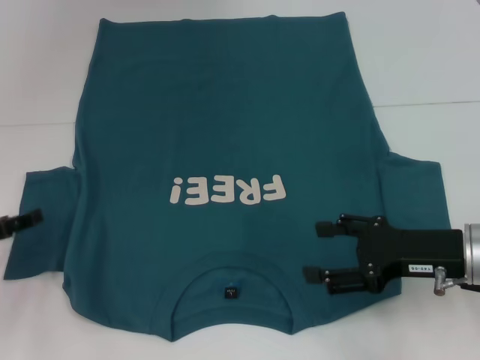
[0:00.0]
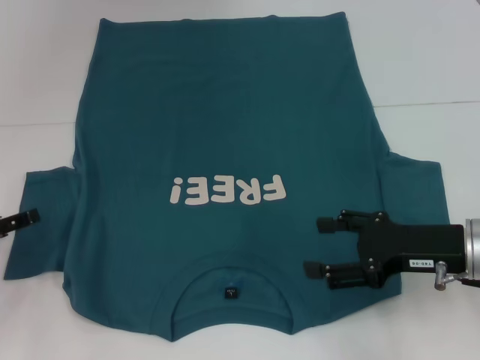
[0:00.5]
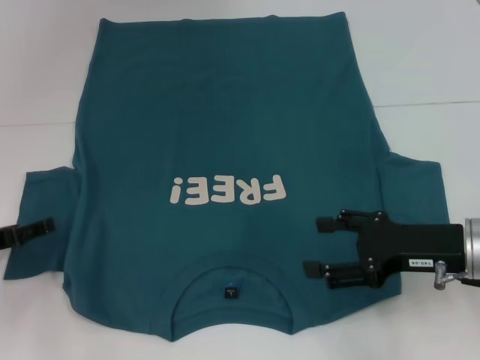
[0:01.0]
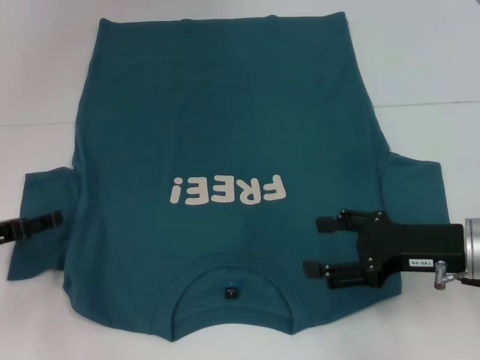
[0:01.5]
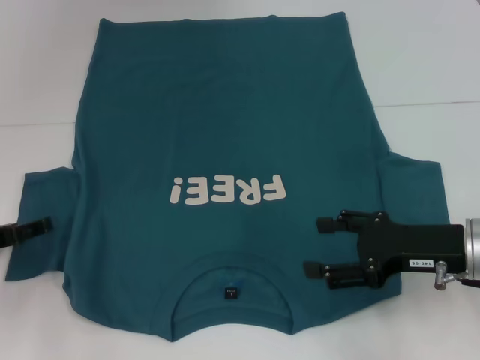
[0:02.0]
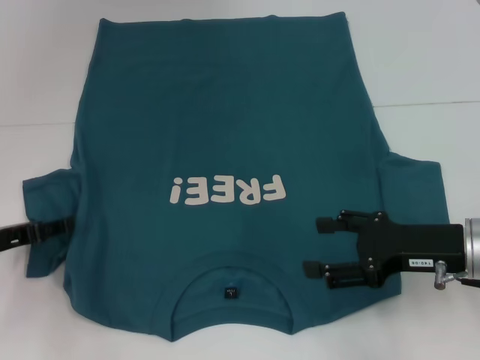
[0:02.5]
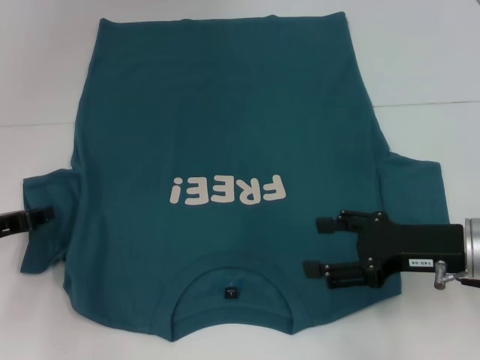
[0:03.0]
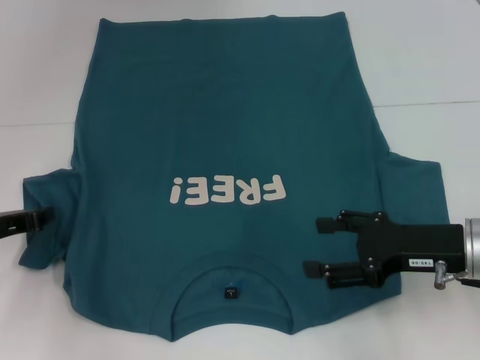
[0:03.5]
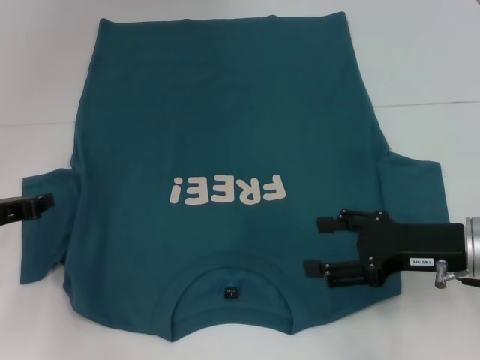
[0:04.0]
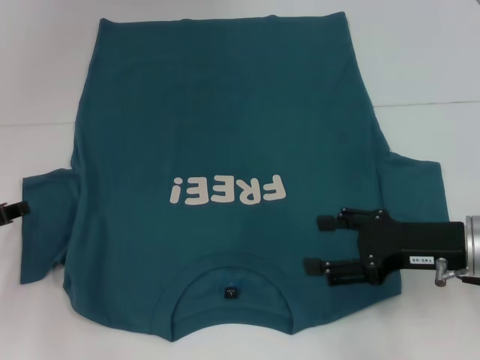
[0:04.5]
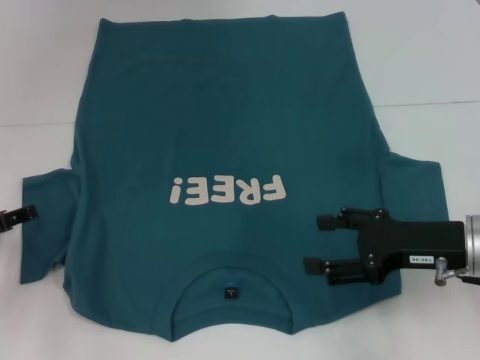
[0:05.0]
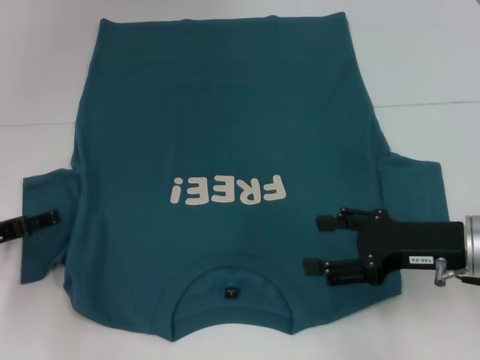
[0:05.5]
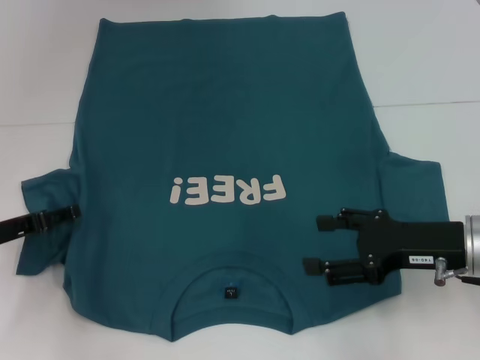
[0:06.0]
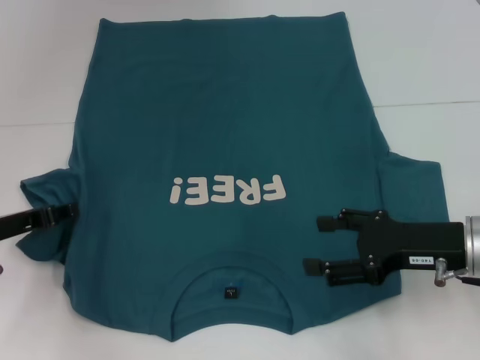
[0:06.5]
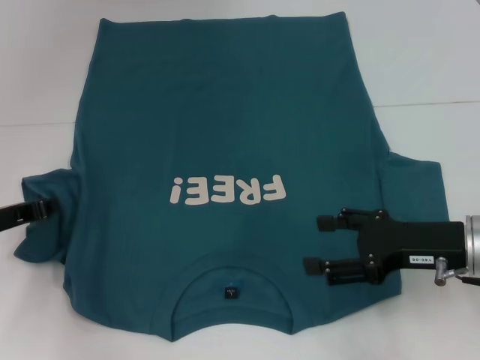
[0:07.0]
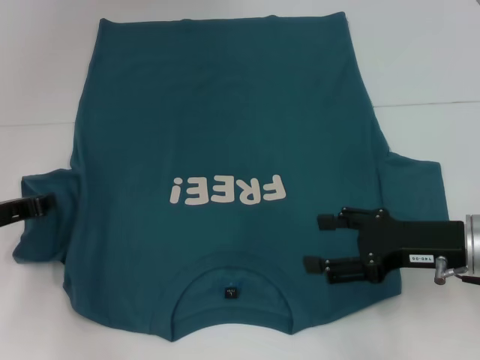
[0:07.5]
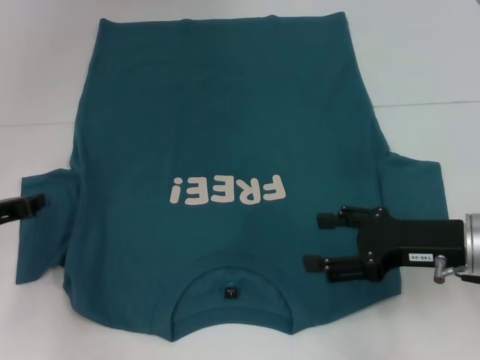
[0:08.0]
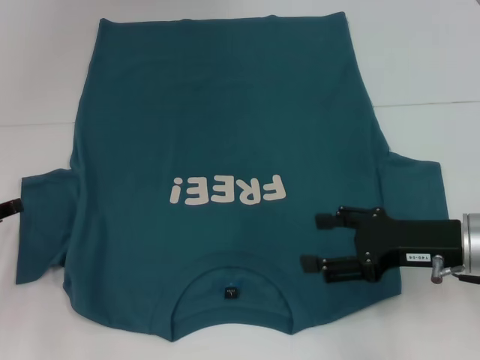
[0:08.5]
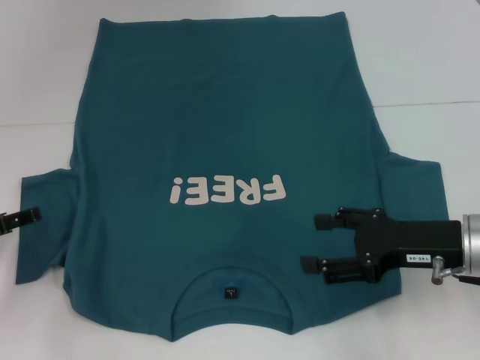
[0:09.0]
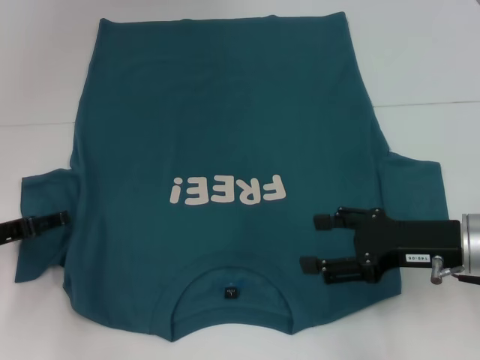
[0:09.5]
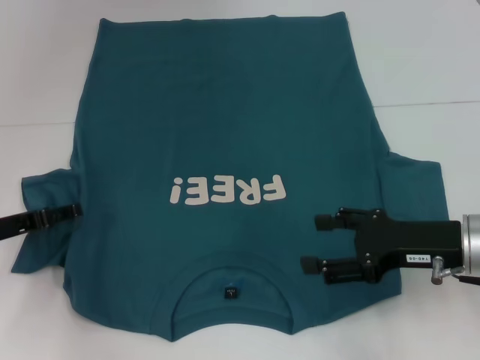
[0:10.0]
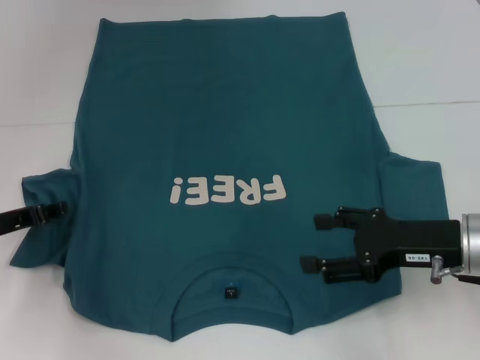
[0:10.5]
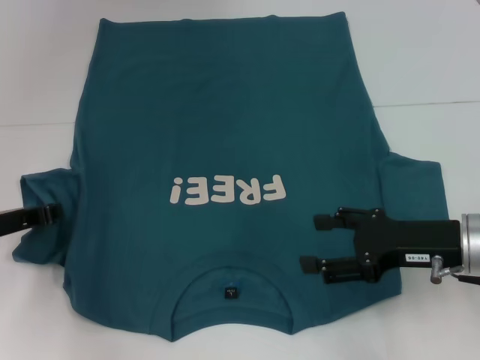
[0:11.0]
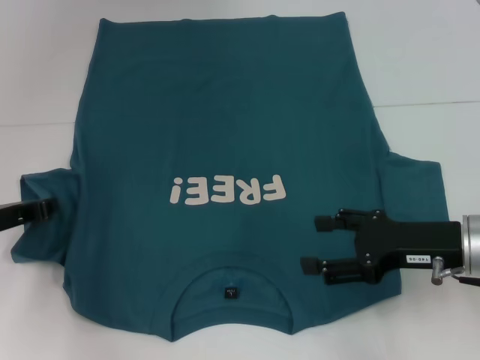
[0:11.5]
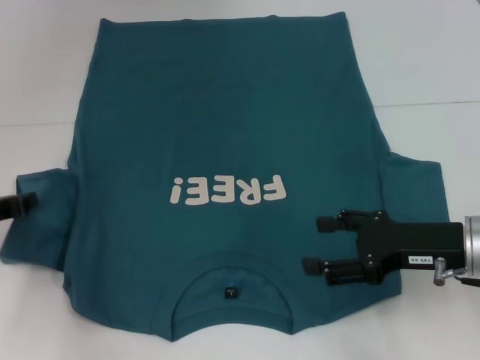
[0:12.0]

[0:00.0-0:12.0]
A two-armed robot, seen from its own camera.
0:00.0 to 0:02.0: There are only small adjustments of the grippers.
0:02.0 to 0:04.0: The left gripper closes its fingers.
0:04.0 to 0:06.0: The left gripper opens.
0:06.0 to 0:08.0: The left gripper closes up.
0:08.0 to 0:10.0: The left gripper opens up.
0:10.0 to 0:12.0: The left gripper closes up.

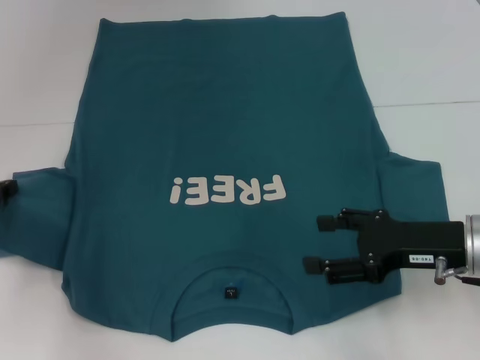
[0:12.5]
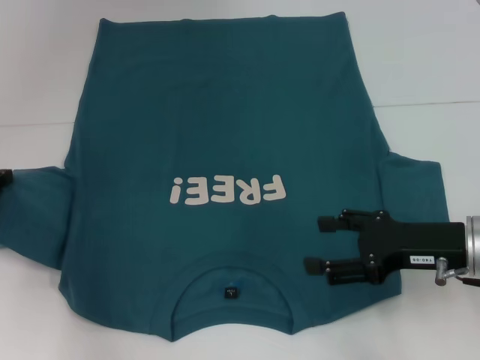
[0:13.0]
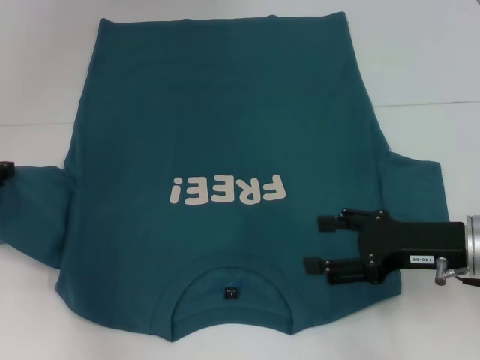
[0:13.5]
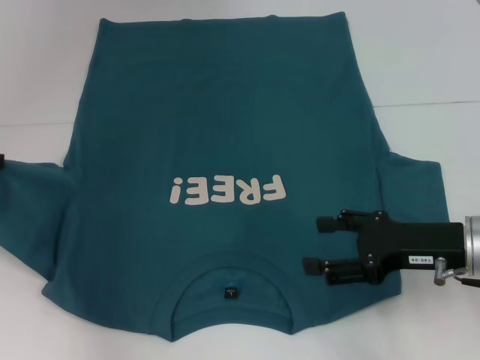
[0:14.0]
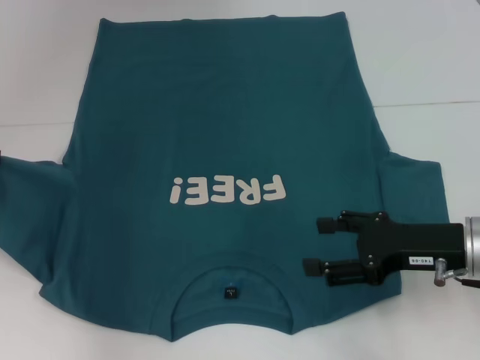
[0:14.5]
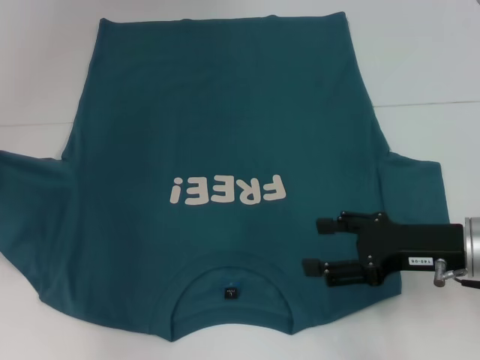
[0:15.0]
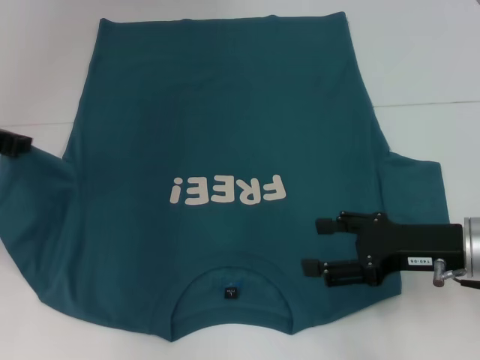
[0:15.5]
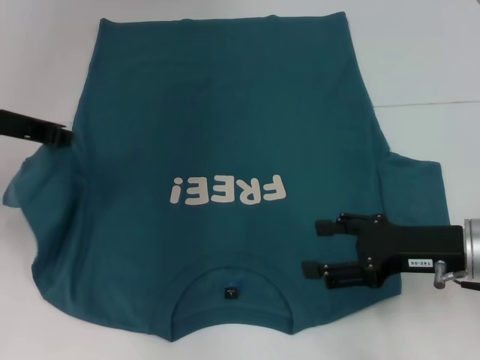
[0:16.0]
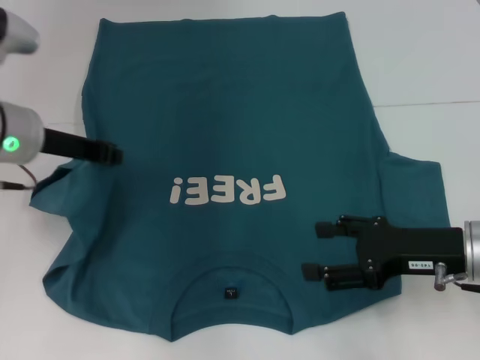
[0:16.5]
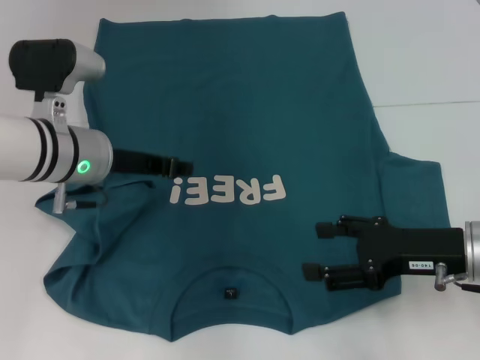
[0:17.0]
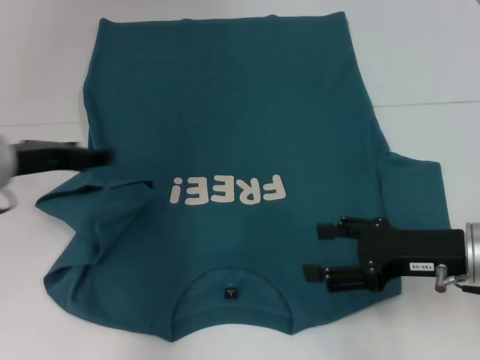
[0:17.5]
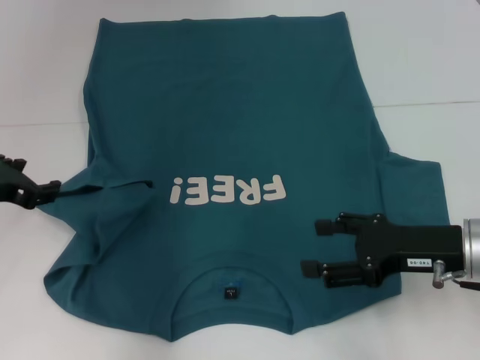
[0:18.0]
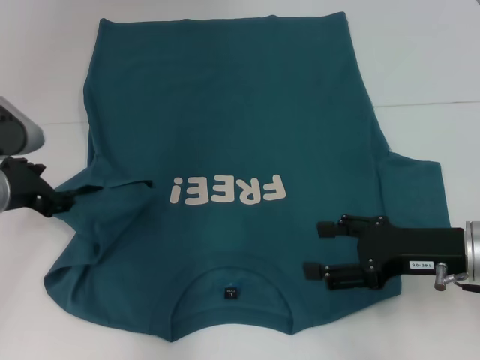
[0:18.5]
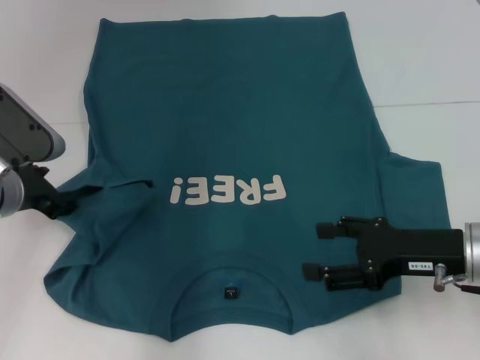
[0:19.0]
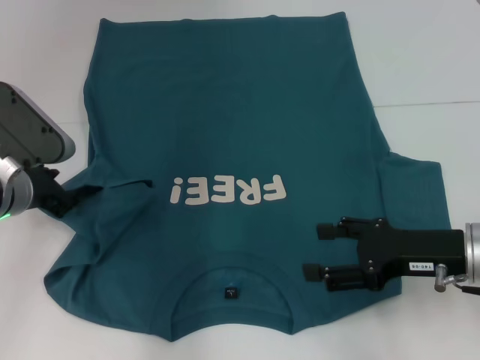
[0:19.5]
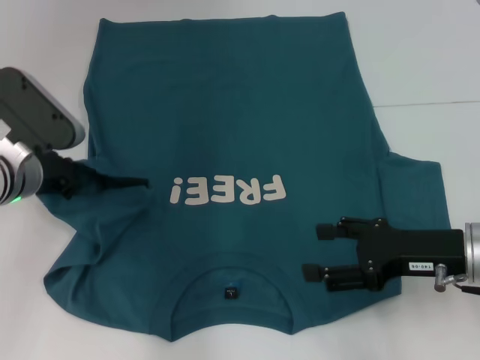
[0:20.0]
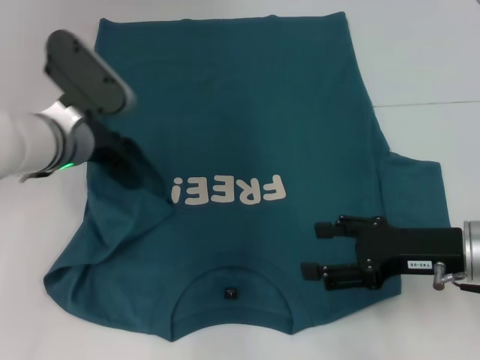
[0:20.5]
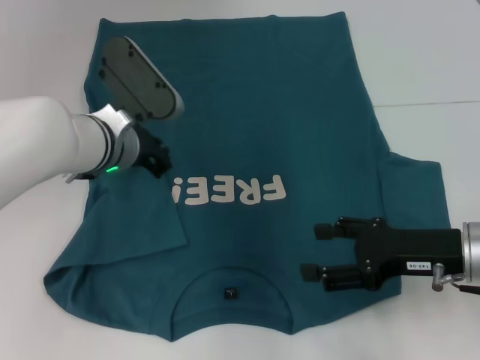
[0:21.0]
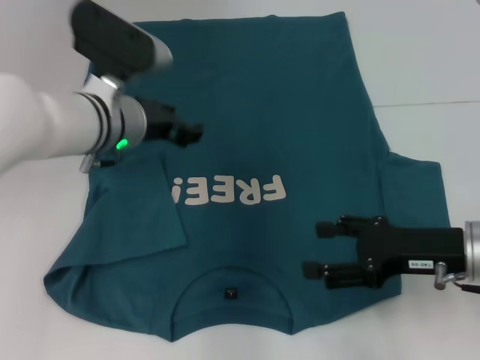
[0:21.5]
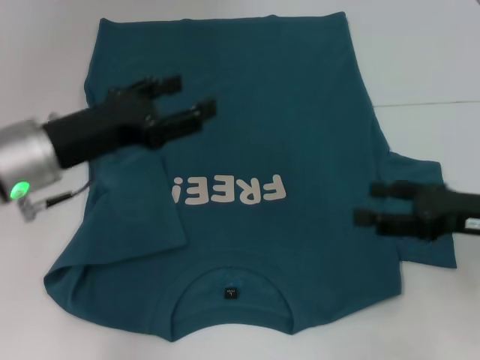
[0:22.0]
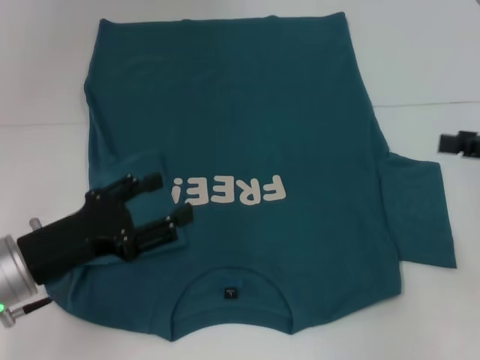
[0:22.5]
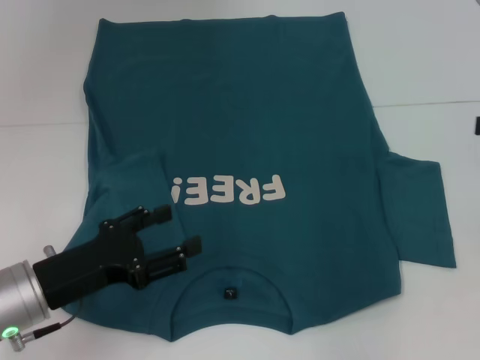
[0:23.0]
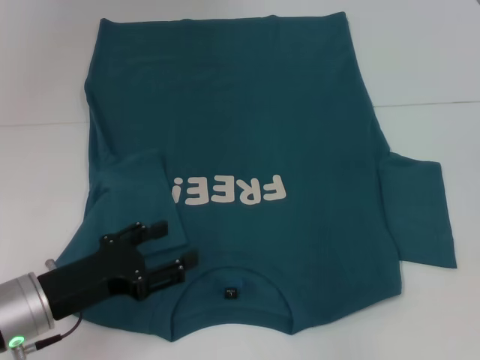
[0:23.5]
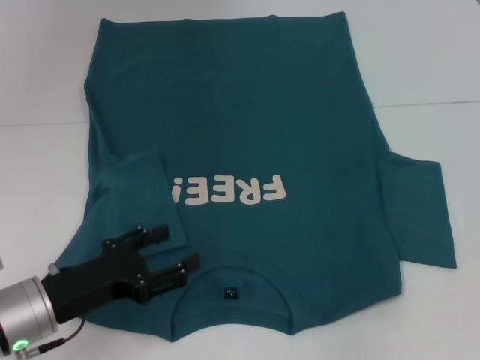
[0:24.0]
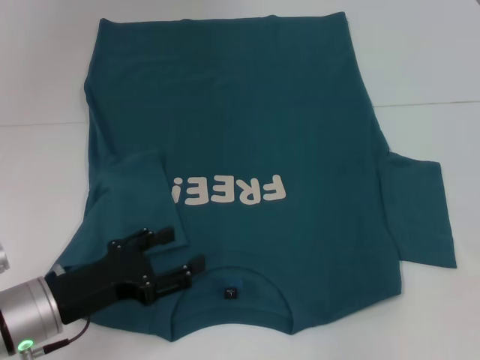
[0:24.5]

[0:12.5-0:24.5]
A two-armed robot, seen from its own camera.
Step, 0:12.5 to 0:21.0: Fold the bottom left sleeve with your left hand.
0:12.5 to 0:14.5: The left gripper travels upward by some 5 cm.
0:14.5 to 0:16.5: The left gripper travels to the right by some 10 cm.
0:16.5 to 0:18.5: The left gripper travels downward by about 5 cm, travels to the left and back again, approximately 5 cm each way, and opens.
0:18.5 to 0:20.5: The left gripper shifts about 10 cm to the right and forward, and closes.
0:20.5 to 0:22.5: The right gripper shifts some 15 cm to the right and upward; the left gripper is displaced backward and to the left by approximately 15 cm, and opens its fingers.

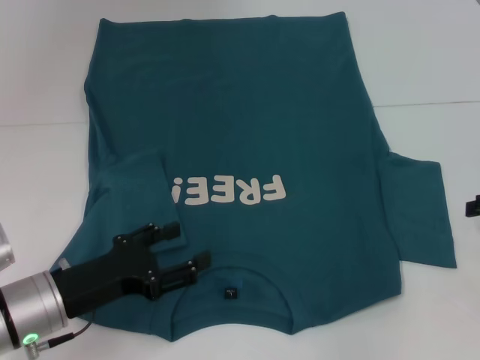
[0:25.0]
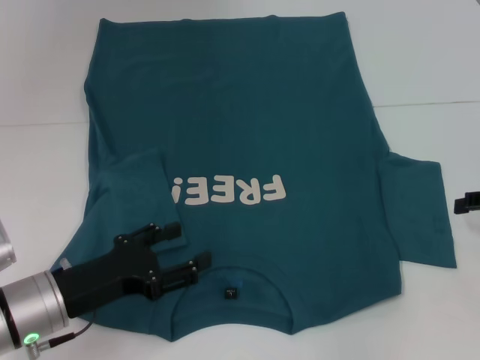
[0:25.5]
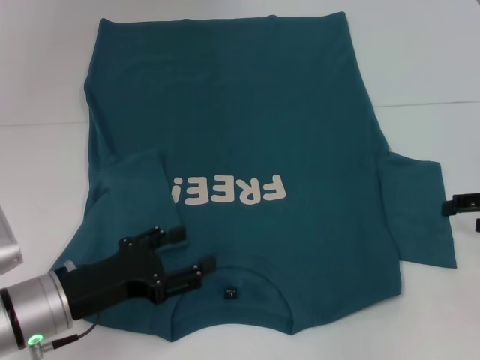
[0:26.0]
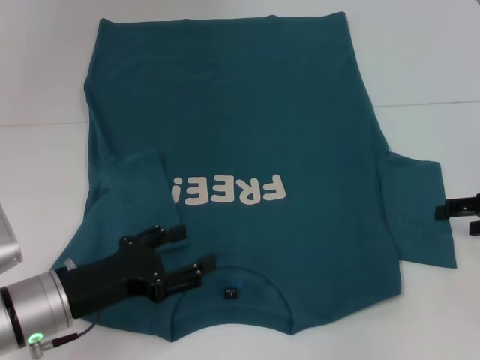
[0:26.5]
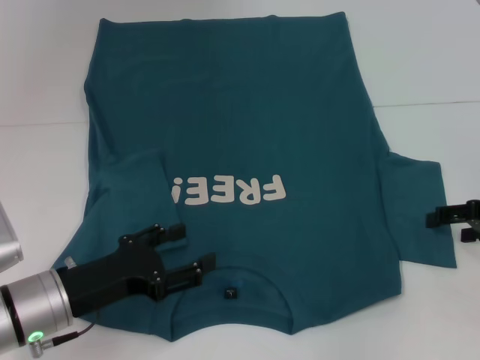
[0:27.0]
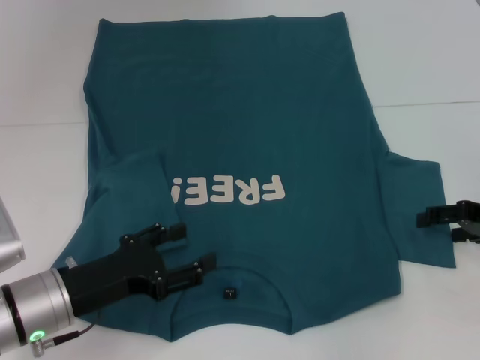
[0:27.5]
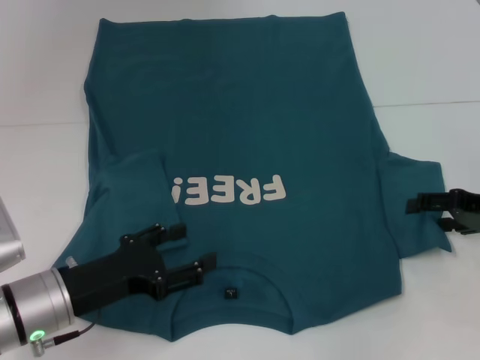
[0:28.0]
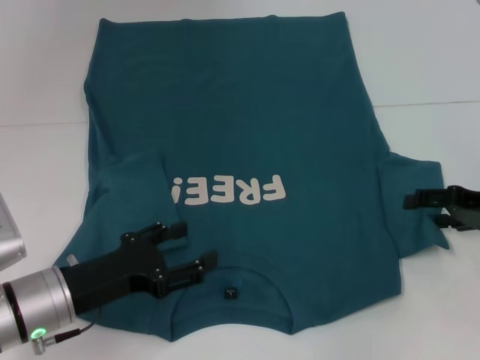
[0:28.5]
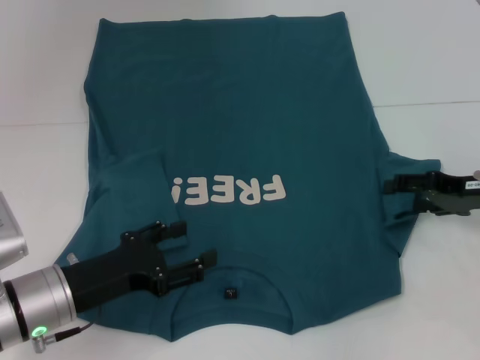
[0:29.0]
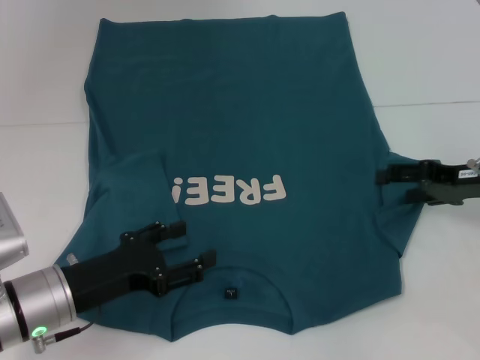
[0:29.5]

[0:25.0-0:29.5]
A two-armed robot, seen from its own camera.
0:25.0 to 0:27.0: The grippers move only a little.
0:27.0 to 0:29.5: The right gripper moves some 5 cm.
